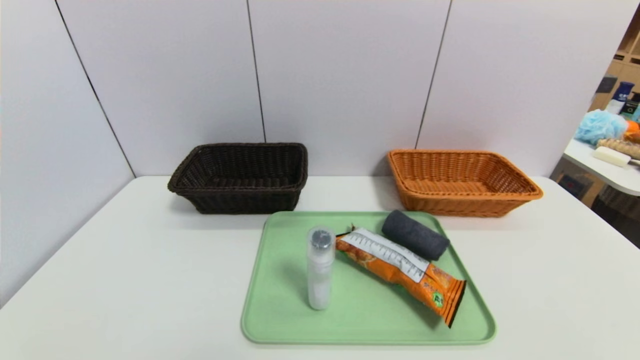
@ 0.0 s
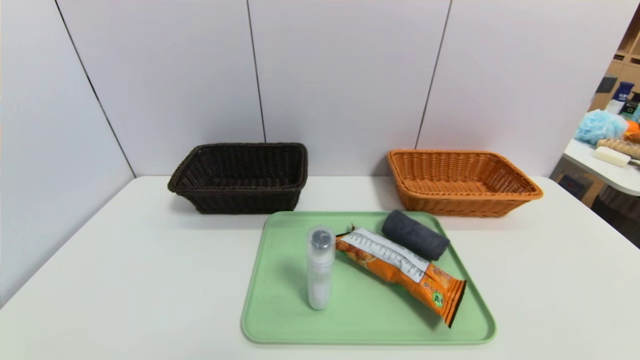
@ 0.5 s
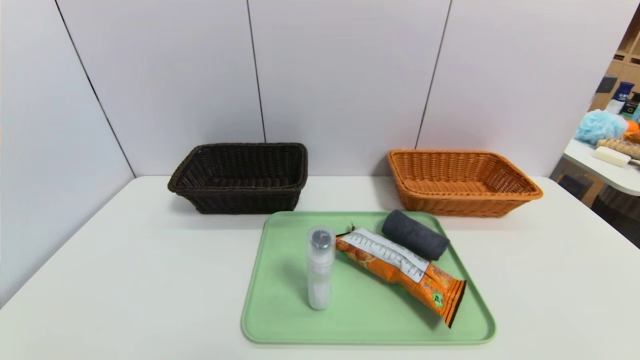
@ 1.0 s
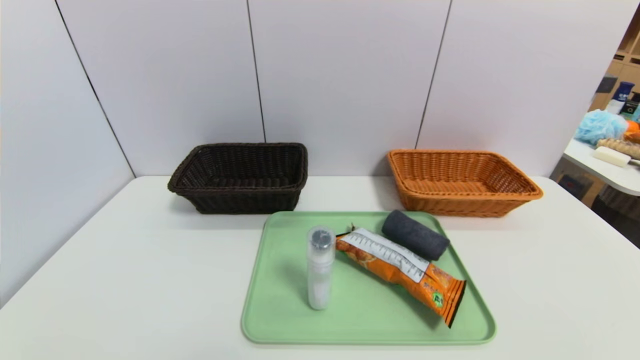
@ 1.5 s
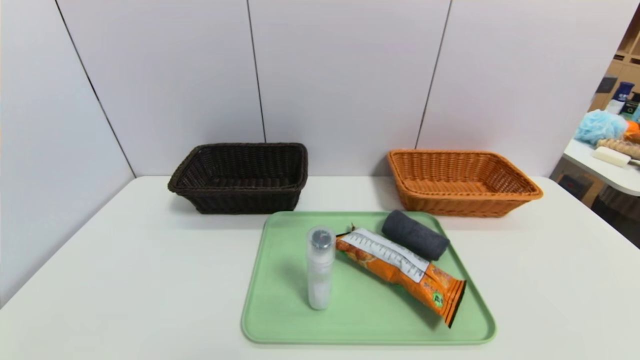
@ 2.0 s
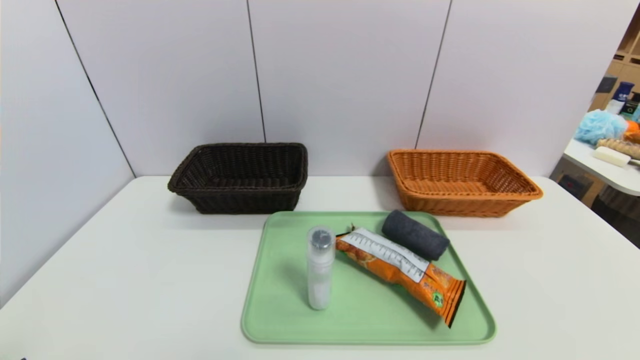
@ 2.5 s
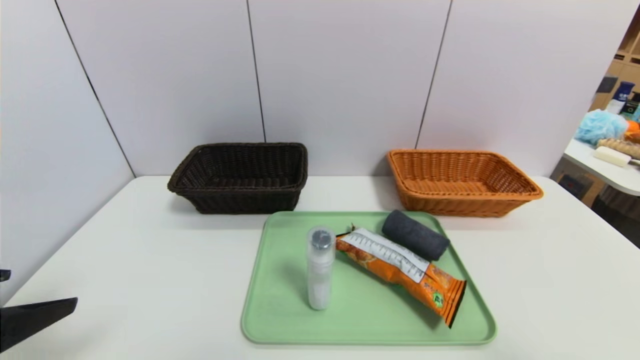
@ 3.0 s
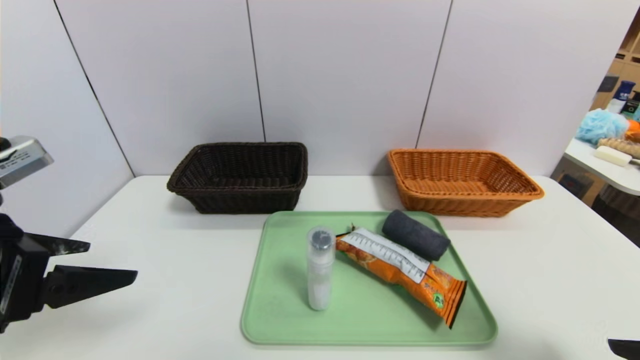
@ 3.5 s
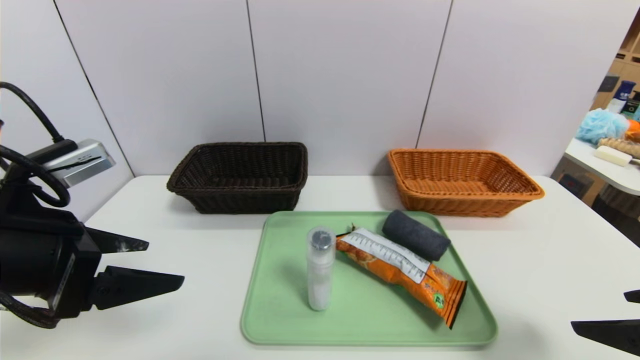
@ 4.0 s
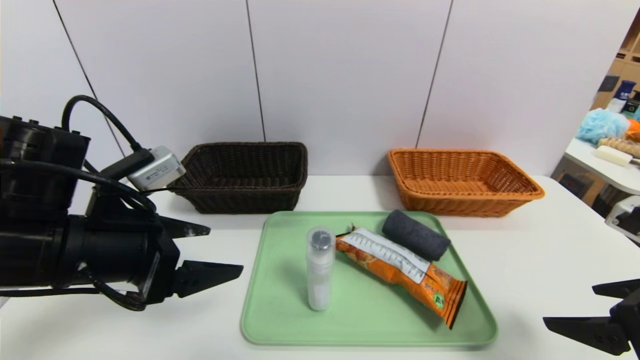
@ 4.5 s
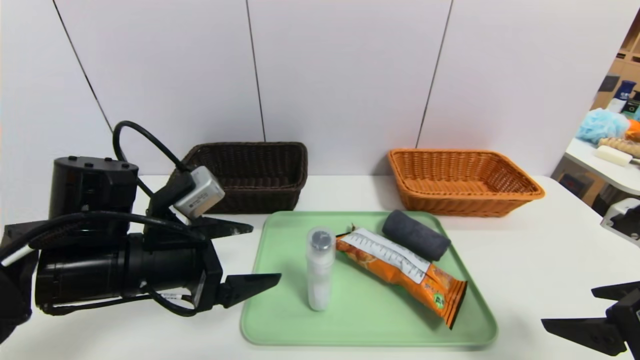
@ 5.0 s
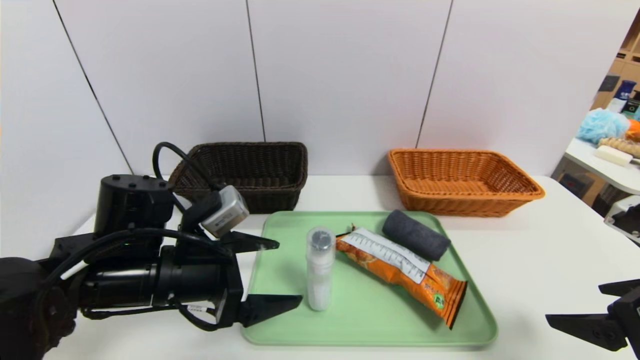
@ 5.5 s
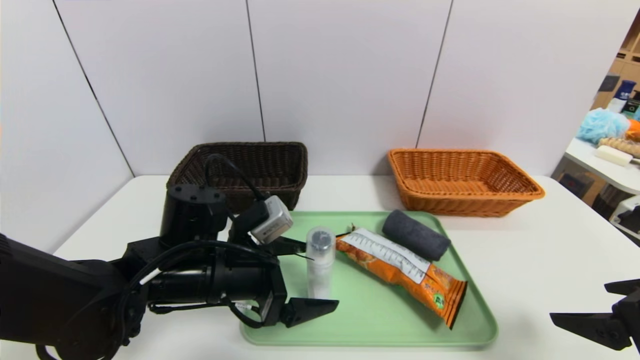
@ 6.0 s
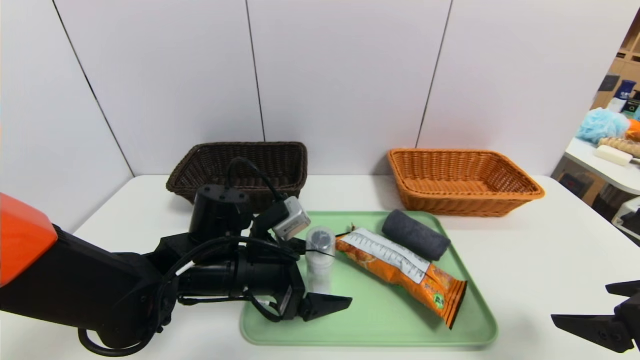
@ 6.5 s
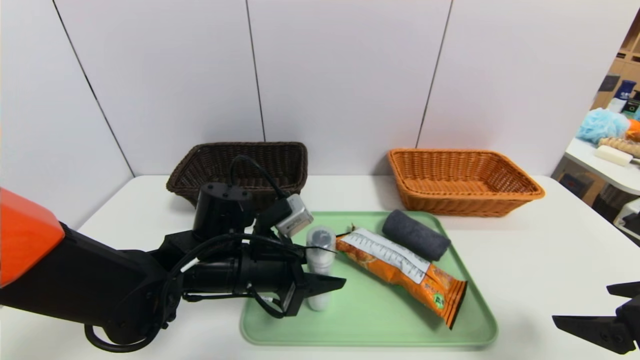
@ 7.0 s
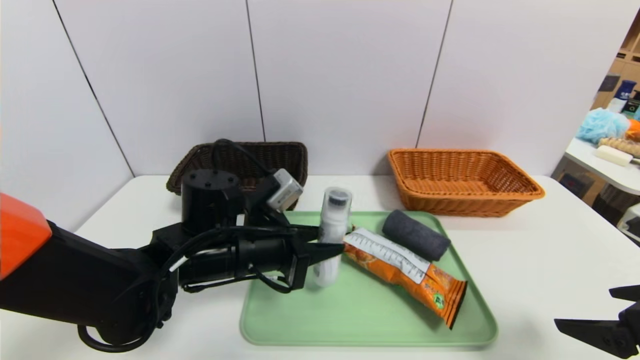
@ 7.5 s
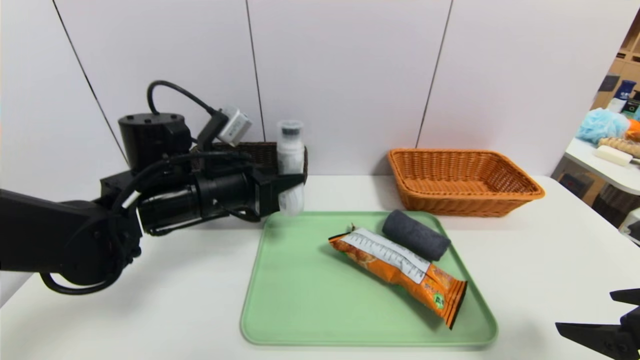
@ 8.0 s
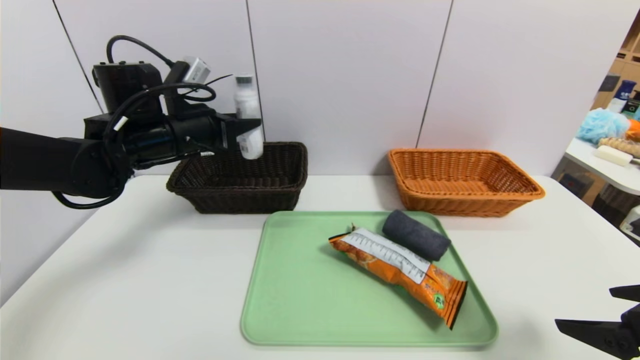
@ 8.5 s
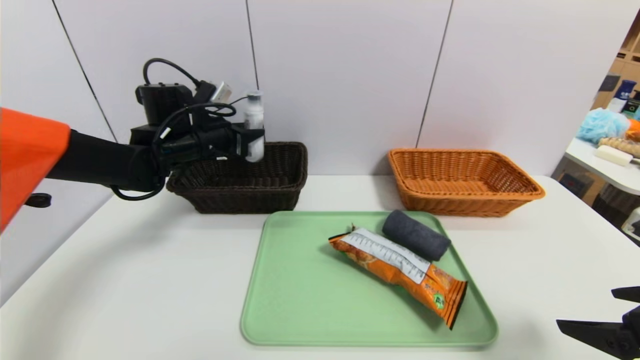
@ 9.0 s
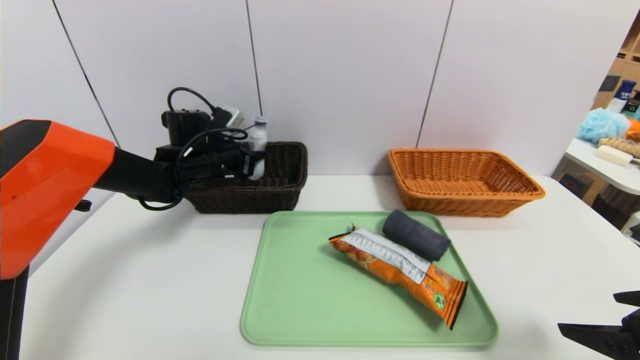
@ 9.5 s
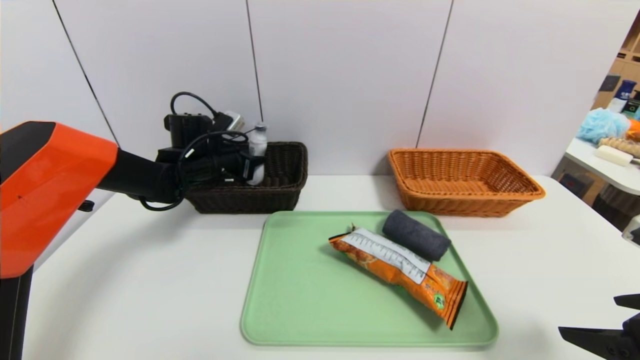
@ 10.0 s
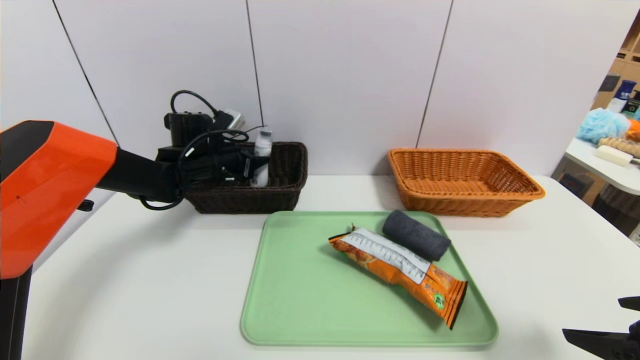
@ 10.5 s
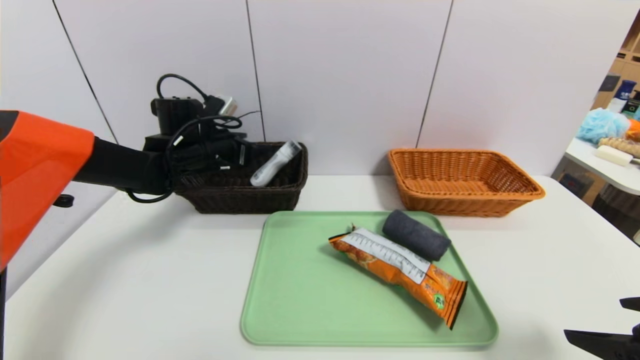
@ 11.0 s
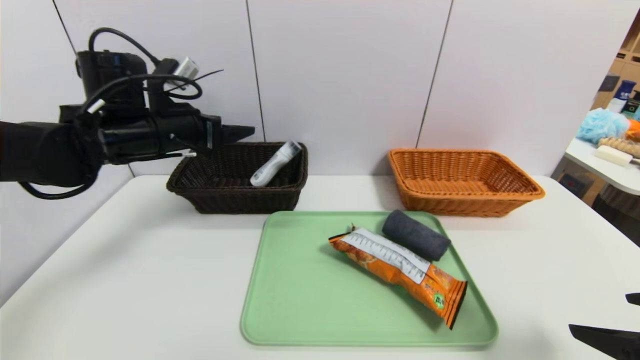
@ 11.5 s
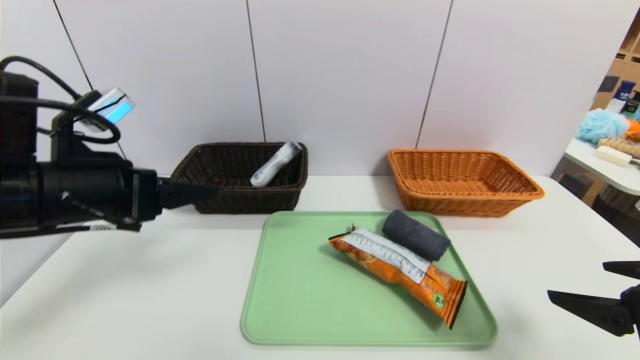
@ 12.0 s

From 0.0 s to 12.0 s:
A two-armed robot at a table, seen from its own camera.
Task of the whole recording: place the food in the right basket with the right gripper, and place the non food items in the left basket with the left gripper.
Step, from 0.0 s to 10.5 s: Grasp the cleaning agent and put it in the left basket.
From 2.0 s to 4.0 s: The grippers both shift forward and upward by approximately 20 cm.
From 4.0 s to 6.0 s: The left gripper travels to the right, downward and forward by approximately 20 cm.
From 6.0 s to 8.0 s: The left gripper goes about 10 cm upward and forward, and closes its fingers.
From 8.0 s to 10.0 s: The left gripper travels forward by about 15 cm.
From 10.0 s to 12.0 s: The left gripper goes approximately 25 cm backward, and opens up.

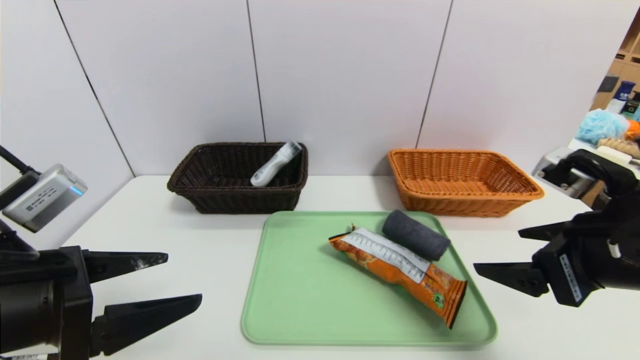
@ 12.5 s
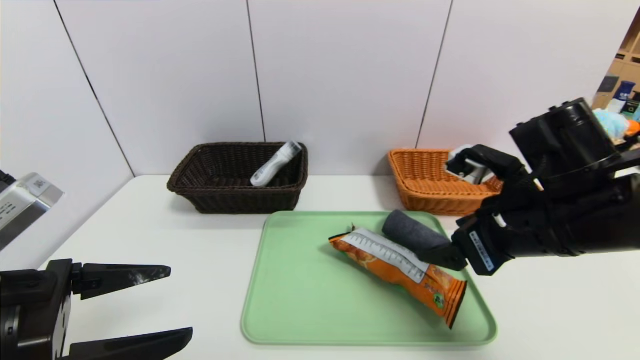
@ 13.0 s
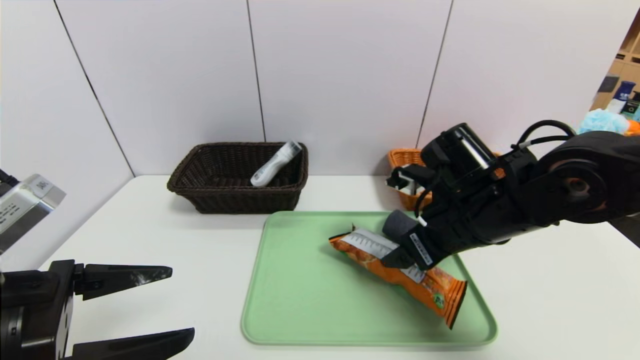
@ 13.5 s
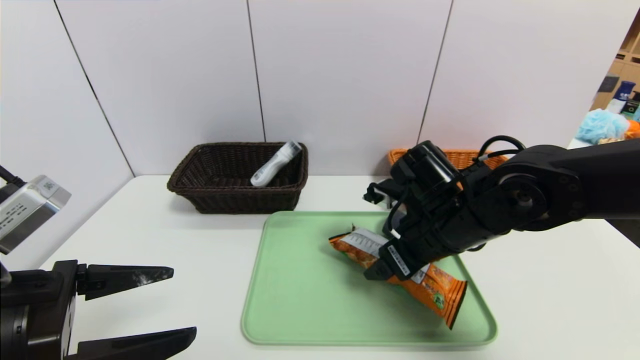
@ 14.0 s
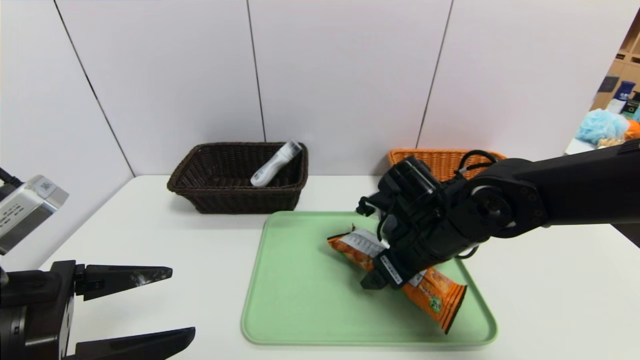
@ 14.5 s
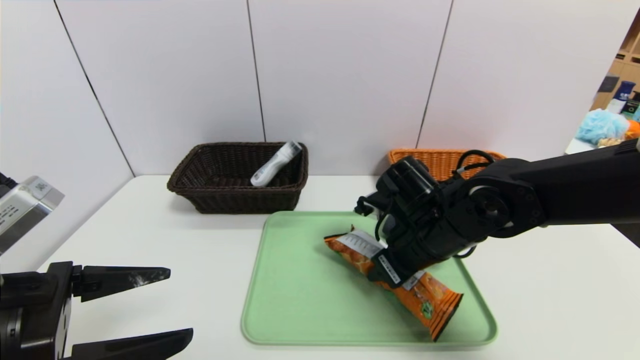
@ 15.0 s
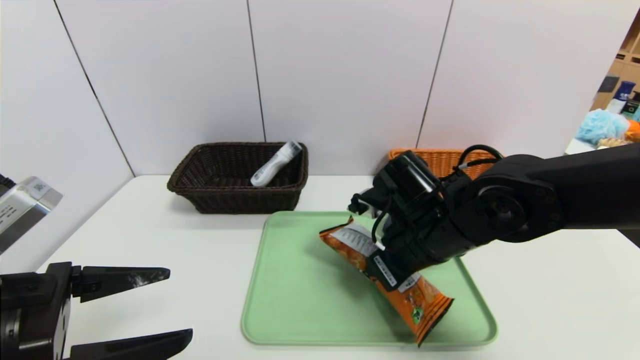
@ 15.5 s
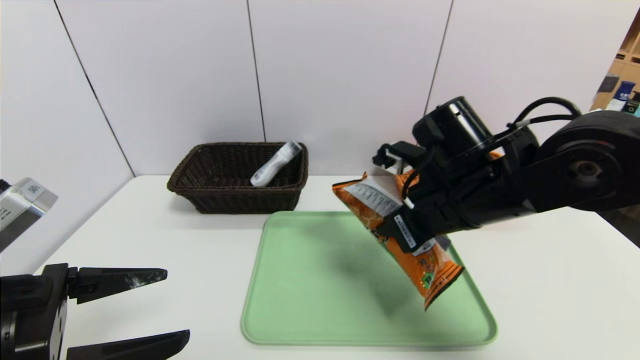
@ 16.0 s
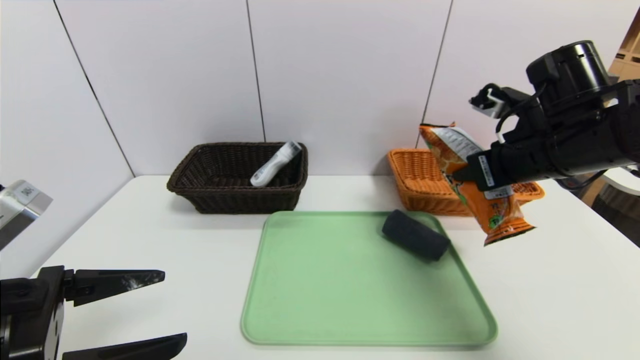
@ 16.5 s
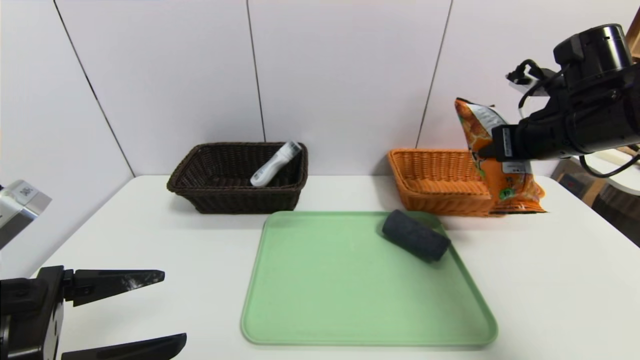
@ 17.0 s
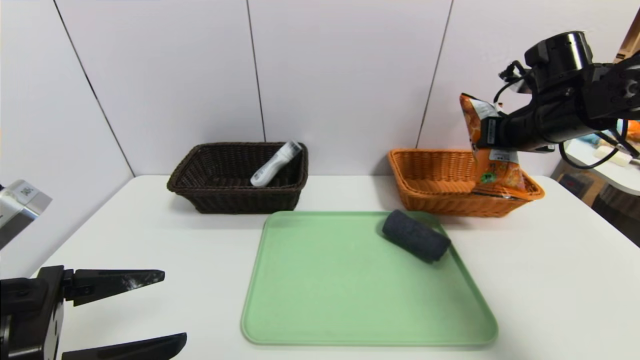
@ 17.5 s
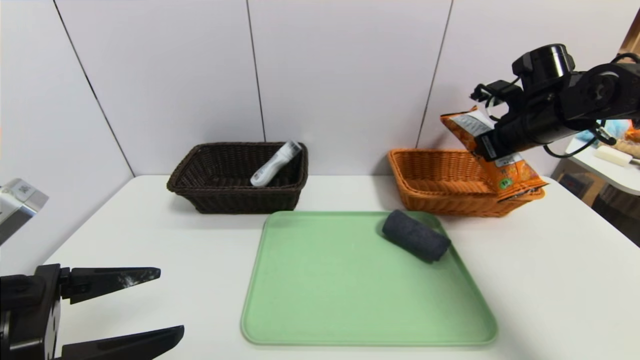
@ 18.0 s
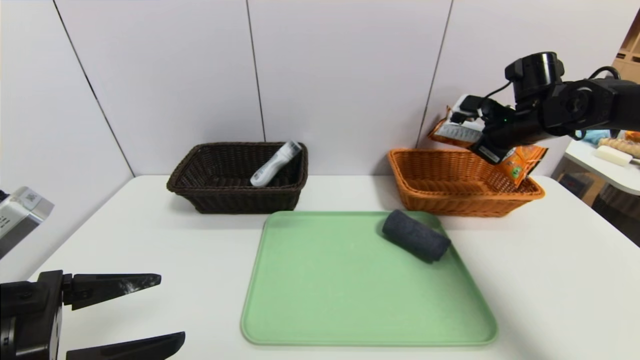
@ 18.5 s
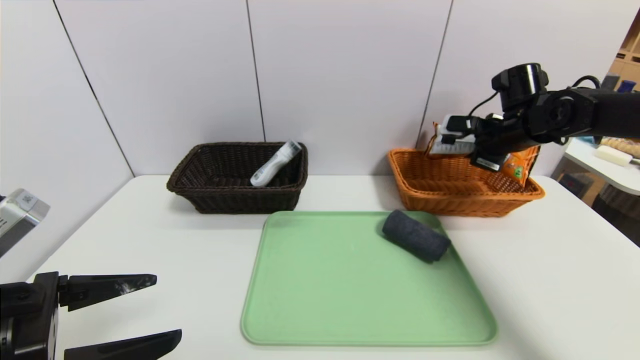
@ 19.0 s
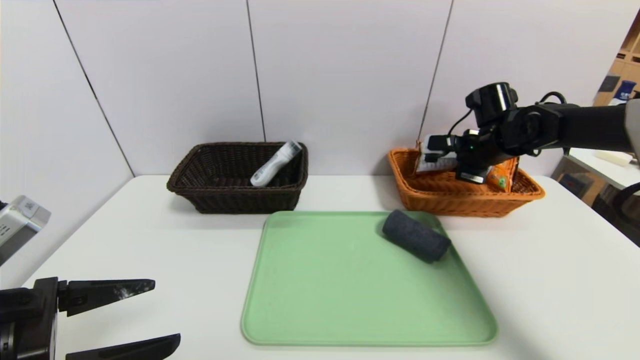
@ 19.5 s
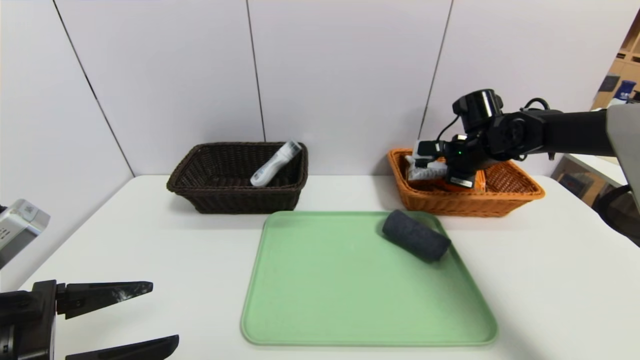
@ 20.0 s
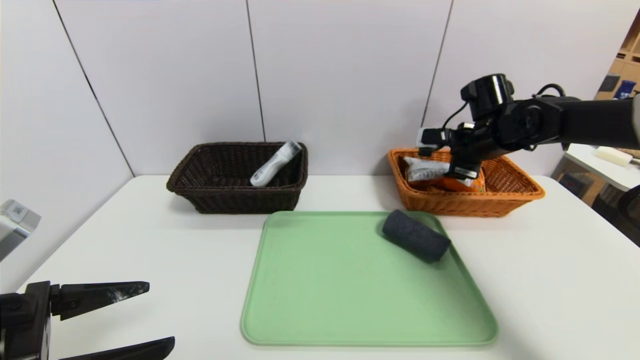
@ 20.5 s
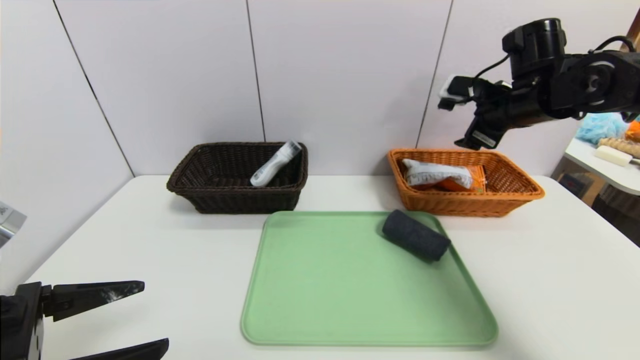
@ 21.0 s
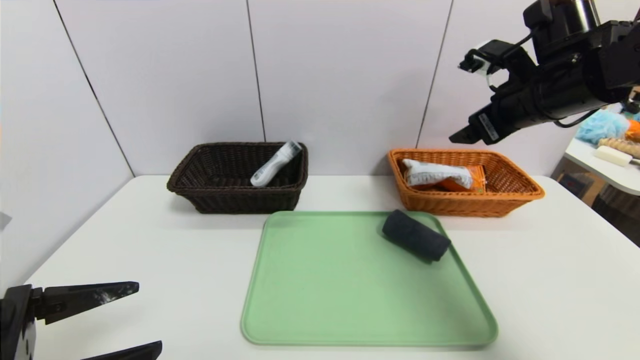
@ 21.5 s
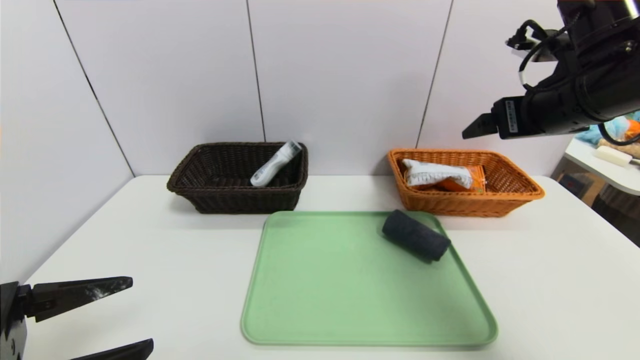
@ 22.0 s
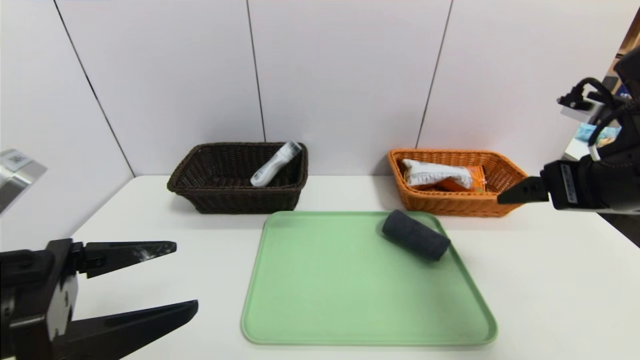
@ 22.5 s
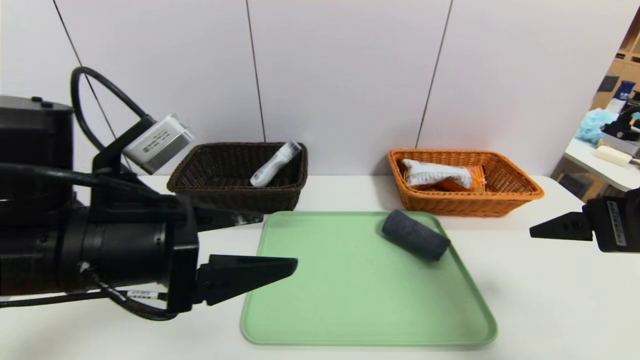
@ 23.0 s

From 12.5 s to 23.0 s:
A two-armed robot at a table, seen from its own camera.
Task of the whole recording: place the food in the right basket with the right gripper, and place the non food items in the left basket with the left gripper.
Step, from 12.5 s to 20.0 s: Grasp the cookie and put it in the right basket.
From 12.5 s to 14.5 s: The right gripper is displaced to the left, forward and downward by some 20 cm.
From 14.5 s to 16.5 s: The right gripper moves to the right and upward, some 15 cm, and closes up.
From 16.5 s to 19.0 s: The right gripper shifts about 15 cm forward.
From 19.0 s to 21.0 s: The right gripper moves upward, approximately 5 cm, and opens its fingers.
From 21.0 s to 23.0 s: The left gripper is displaced to the right and forward by some 10 cm. The right gripper travels backward by some 20 cm.
